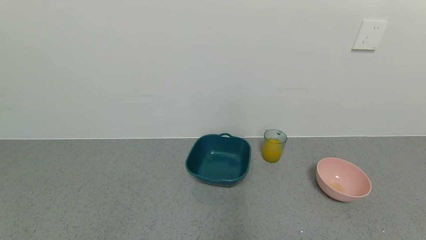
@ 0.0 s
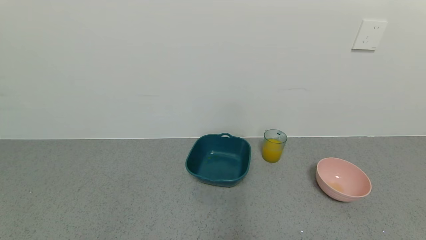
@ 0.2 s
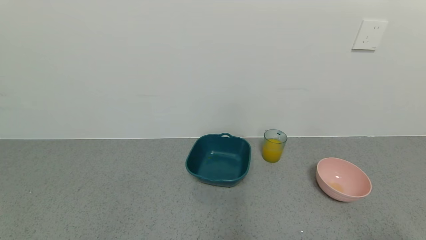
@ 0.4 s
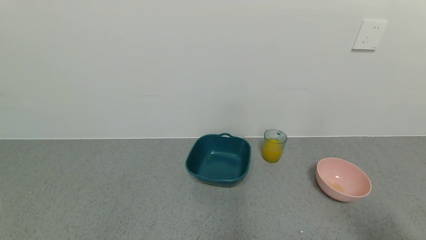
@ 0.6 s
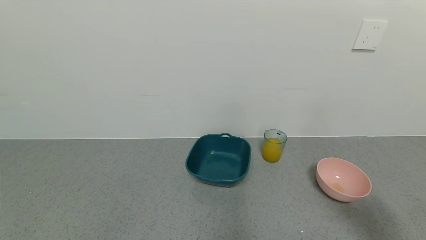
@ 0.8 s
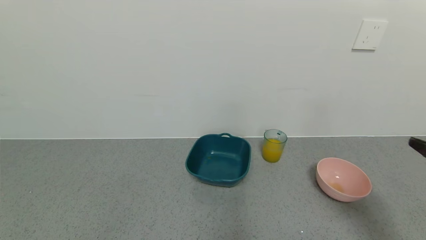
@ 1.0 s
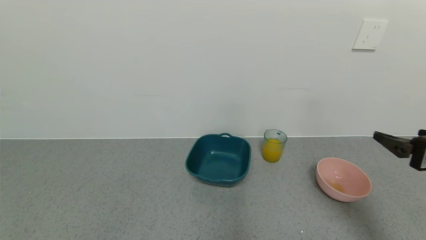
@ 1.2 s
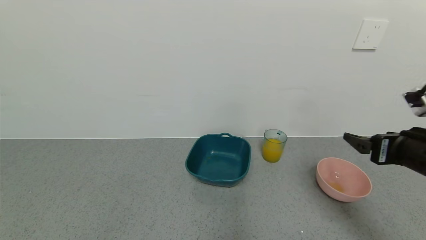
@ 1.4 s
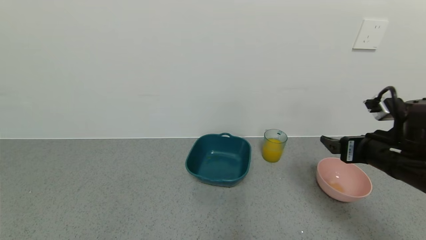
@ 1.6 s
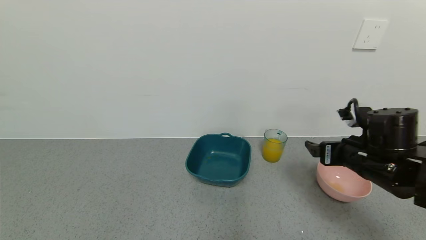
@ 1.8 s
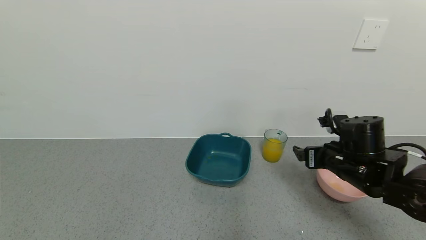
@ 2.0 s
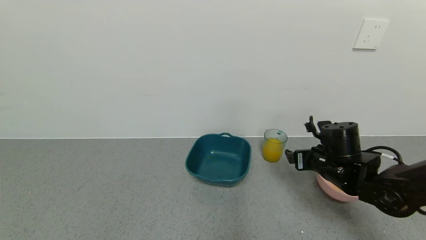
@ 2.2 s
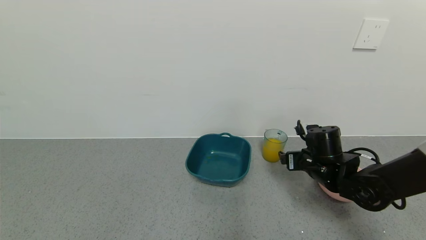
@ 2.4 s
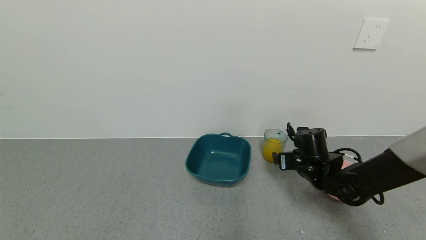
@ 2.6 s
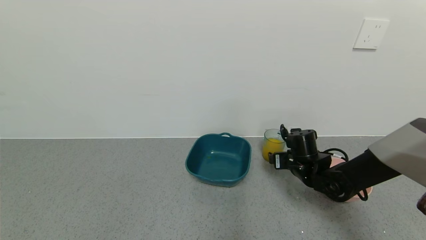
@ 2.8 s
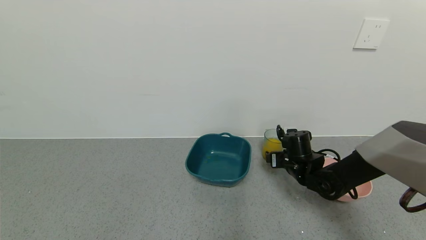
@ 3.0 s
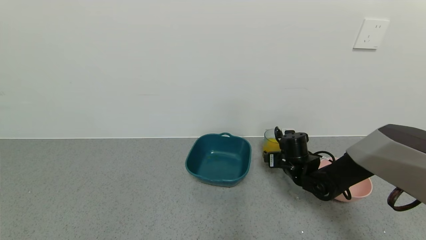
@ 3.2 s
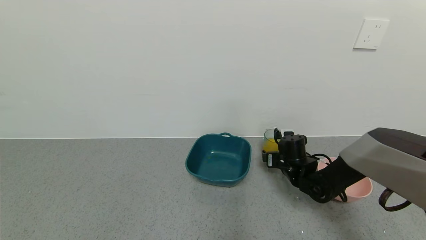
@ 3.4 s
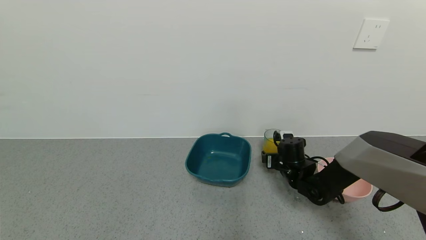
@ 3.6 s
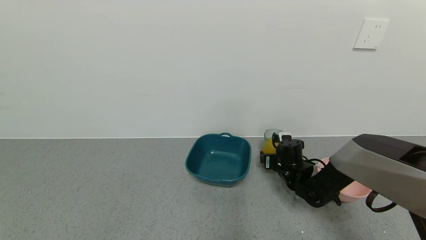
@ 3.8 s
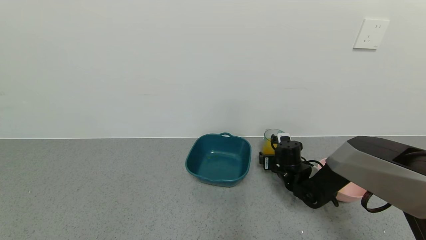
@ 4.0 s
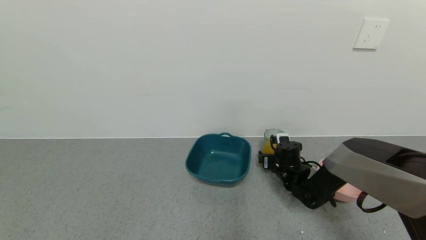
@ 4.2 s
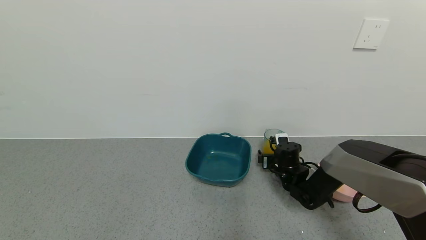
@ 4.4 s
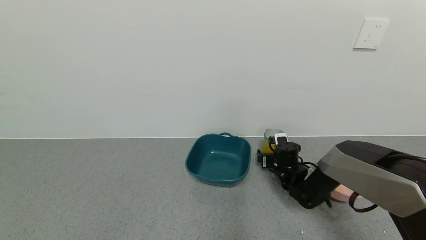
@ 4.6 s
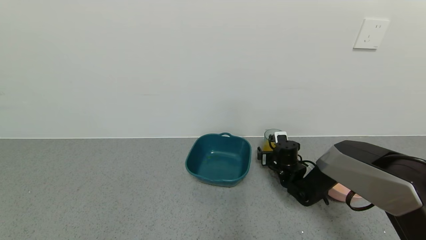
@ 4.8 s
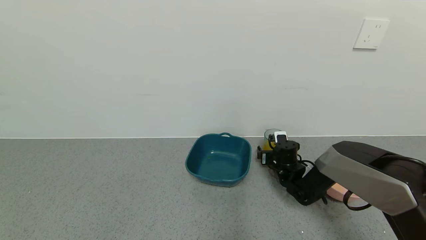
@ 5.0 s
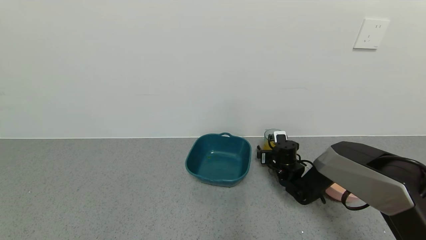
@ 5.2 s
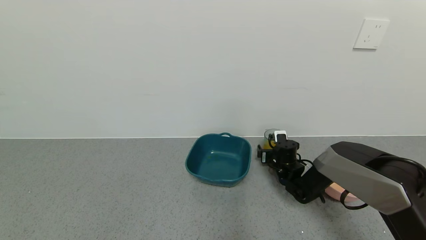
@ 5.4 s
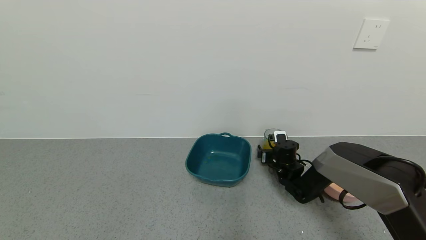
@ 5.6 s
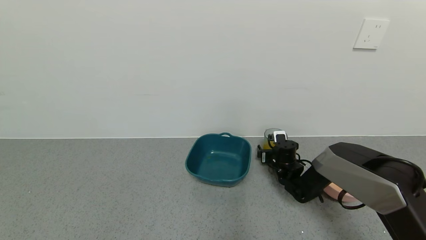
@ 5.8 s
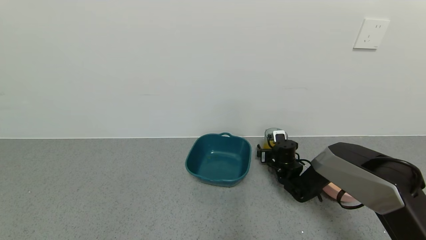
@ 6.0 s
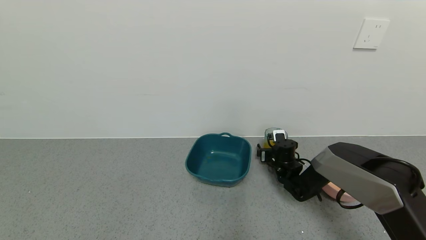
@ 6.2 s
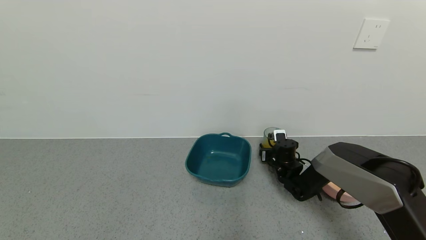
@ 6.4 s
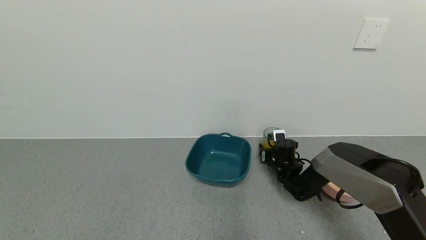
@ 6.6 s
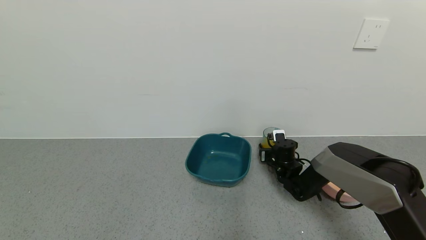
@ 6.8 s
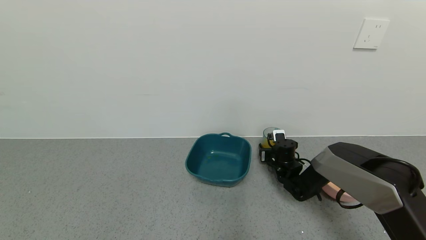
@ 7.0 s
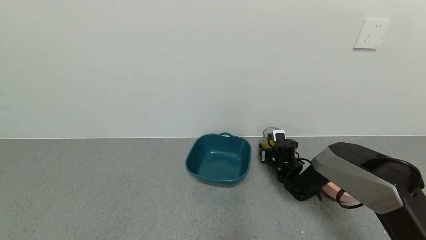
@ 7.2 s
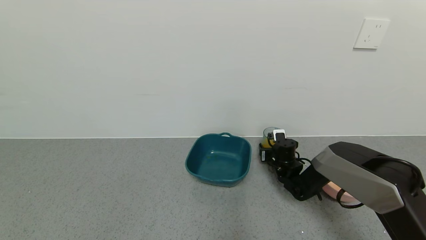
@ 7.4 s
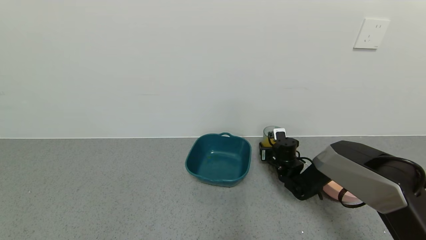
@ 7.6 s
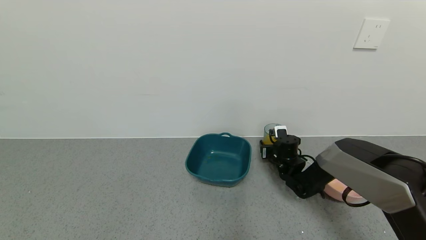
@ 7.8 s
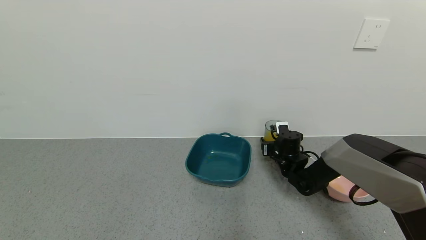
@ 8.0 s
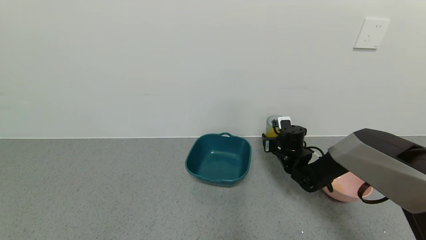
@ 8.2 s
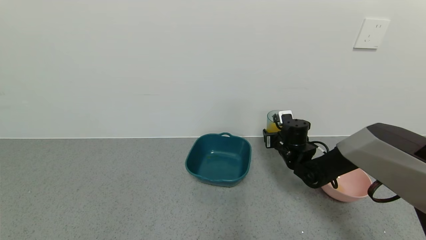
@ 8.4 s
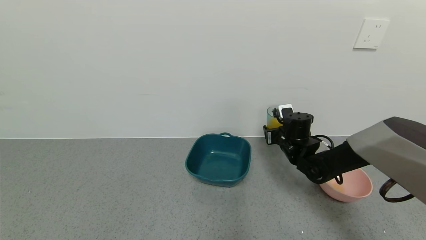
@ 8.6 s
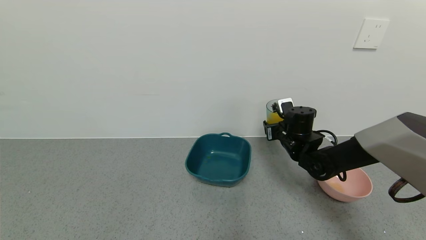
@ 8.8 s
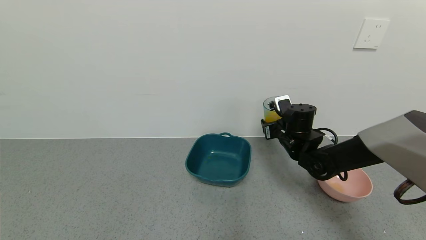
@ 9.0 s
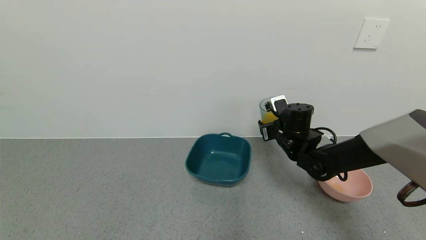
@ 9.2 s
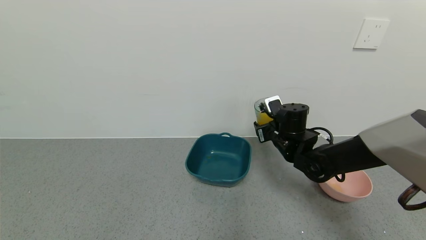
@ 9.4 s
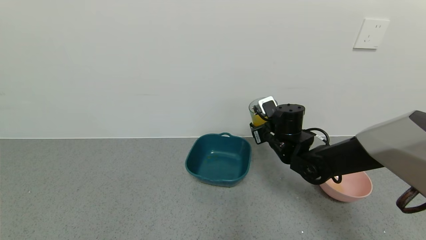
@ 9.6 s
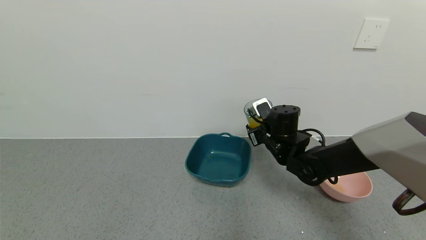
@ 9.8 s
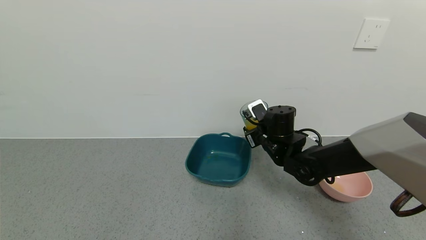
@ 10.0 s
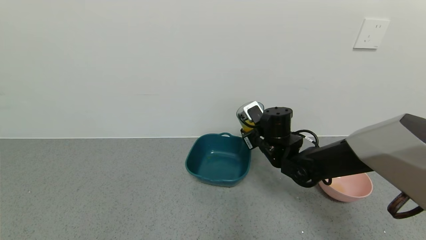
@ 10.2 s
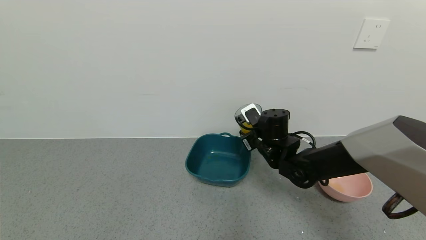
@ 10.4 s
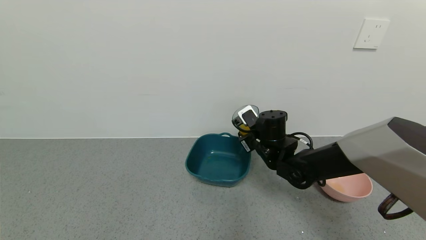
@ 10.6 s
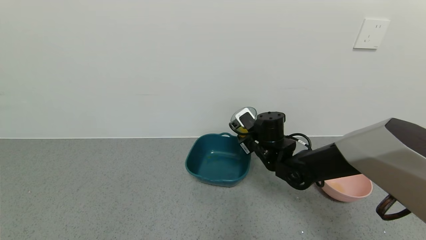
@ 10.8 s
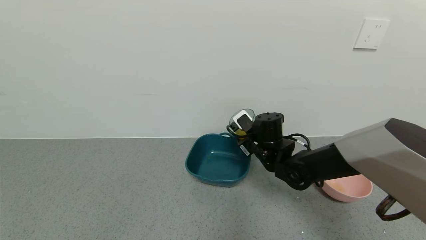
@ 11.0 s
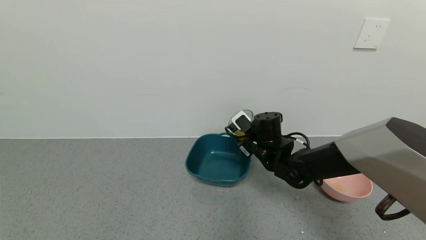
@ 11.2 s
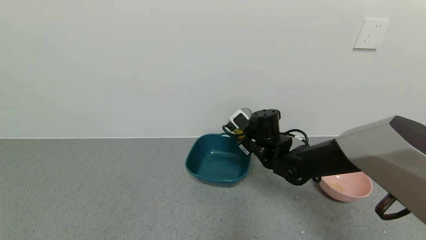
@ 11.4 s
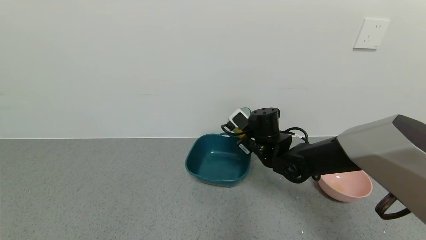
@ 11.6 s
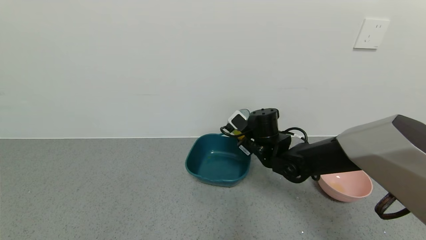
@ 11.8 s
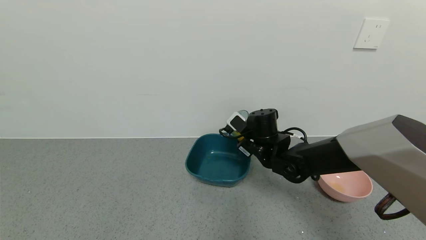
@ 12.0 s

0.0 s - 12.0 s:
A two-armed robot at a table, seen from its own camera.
Task of the whole recording: use a gripper to pick up the cup and pour the liquid into a bowl or tray.
Step, 0.0 s - 7.2 s: Grasp the glass of black tea with the right gripper.
0.0 s - 1.6 s: The right gripper heads forward, covering approximately 30 cm.
1.6 s - 3.0 s: The right gripper heads downward, forward and to the left, covering about 20 cm.
3.0 s - 4.4 s: The right gripper moves downward, approximately 5 cm.
4.4 s - 6.0 s: There are only small adjustments of the grippers.
6.0 s - 7.6 s: The right gripper closes up.
7.6 s - 9.0 s: The right gripper moves upward, roughly 10 cm.
9.0 s - 10.4 s: The right gripper heads to the left, covering about 5 cm.
10.4 s - 12.0 s: The grippers make only small movements.

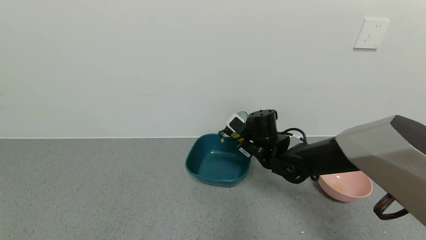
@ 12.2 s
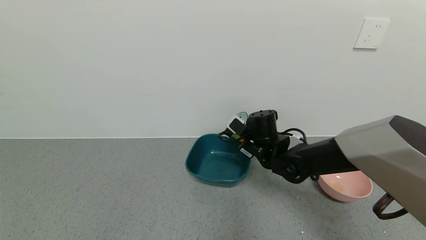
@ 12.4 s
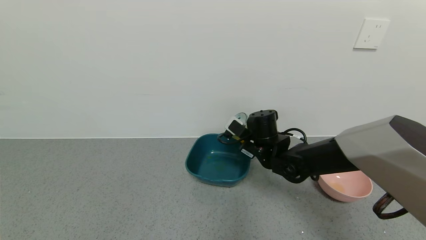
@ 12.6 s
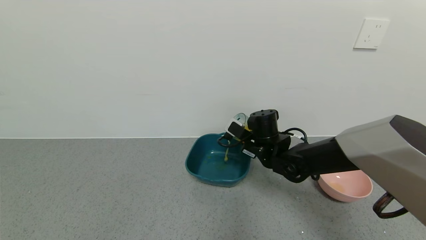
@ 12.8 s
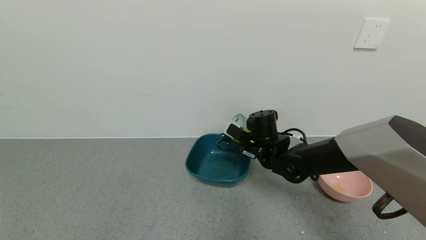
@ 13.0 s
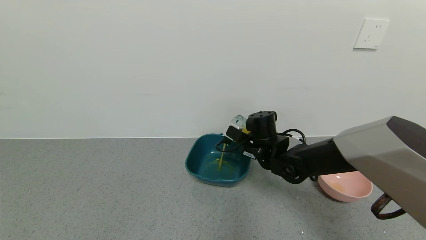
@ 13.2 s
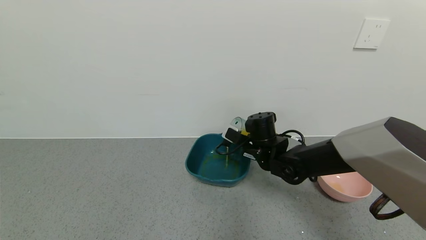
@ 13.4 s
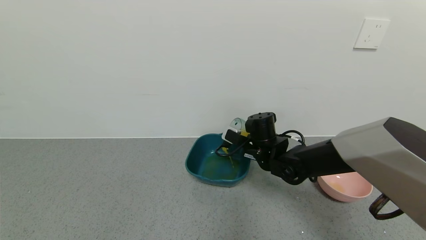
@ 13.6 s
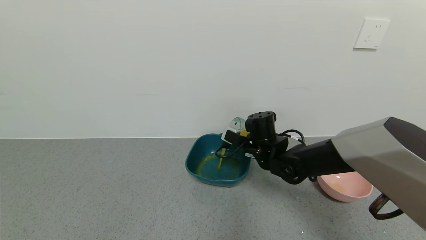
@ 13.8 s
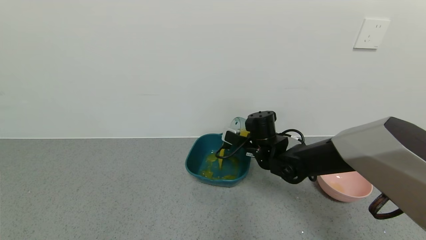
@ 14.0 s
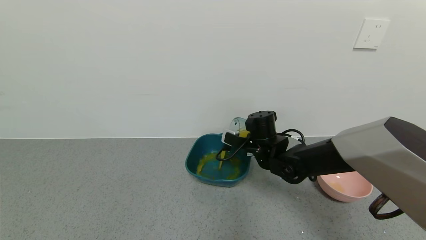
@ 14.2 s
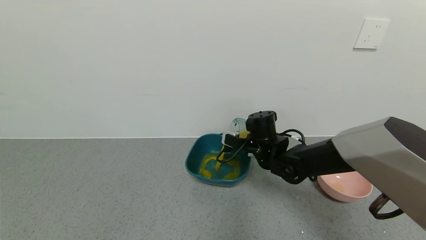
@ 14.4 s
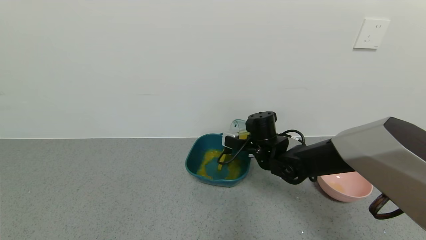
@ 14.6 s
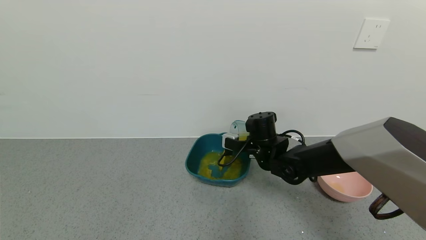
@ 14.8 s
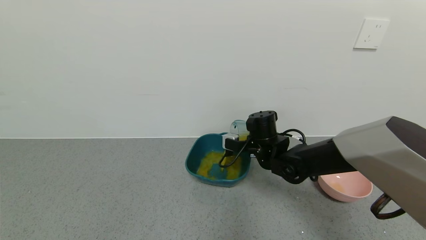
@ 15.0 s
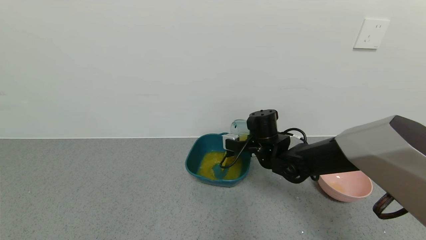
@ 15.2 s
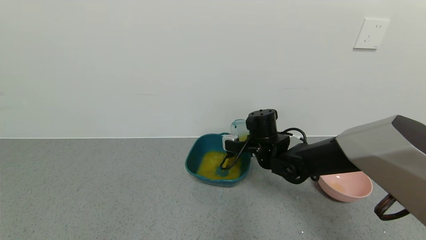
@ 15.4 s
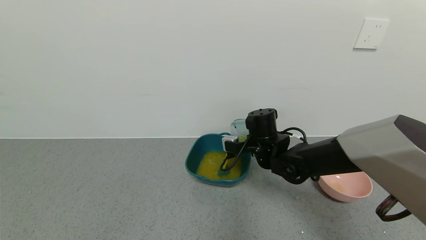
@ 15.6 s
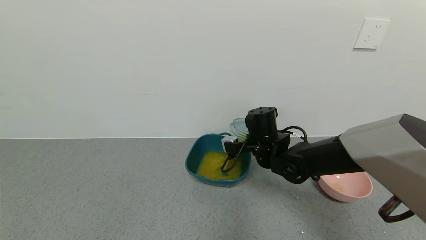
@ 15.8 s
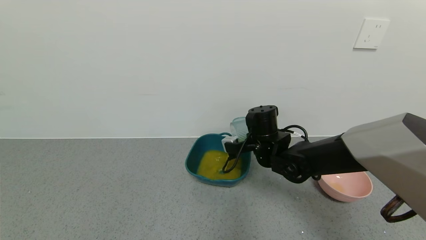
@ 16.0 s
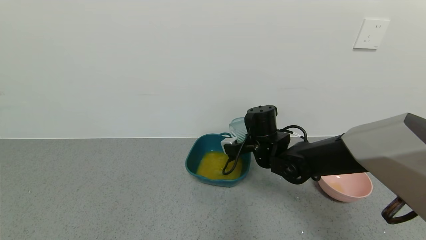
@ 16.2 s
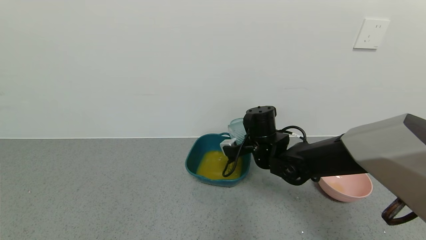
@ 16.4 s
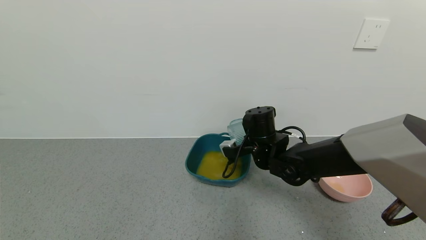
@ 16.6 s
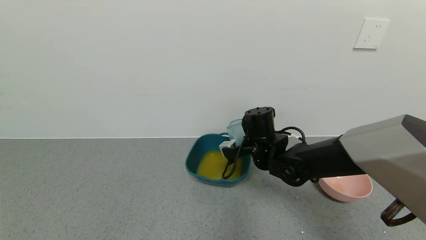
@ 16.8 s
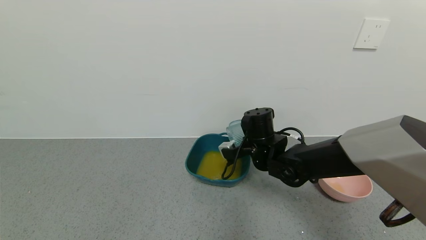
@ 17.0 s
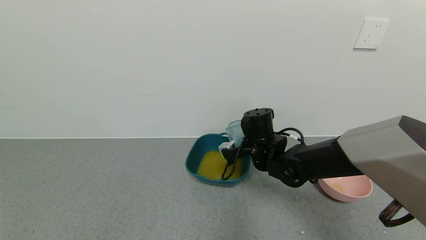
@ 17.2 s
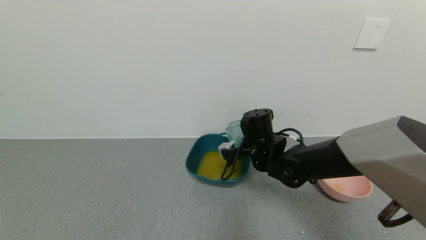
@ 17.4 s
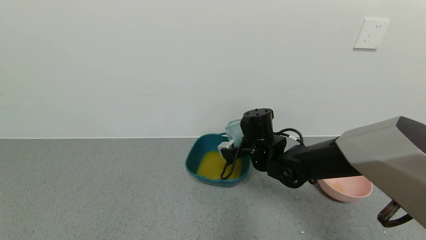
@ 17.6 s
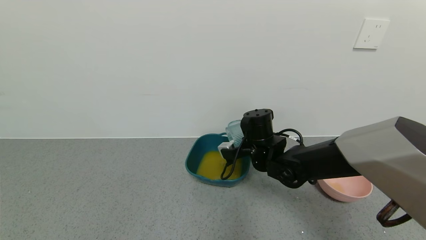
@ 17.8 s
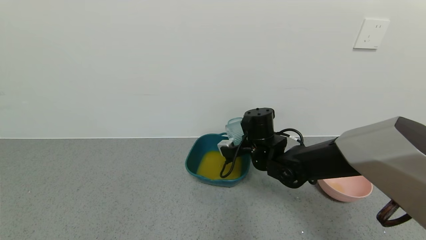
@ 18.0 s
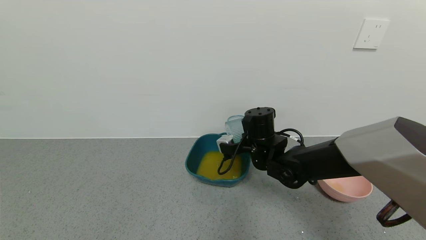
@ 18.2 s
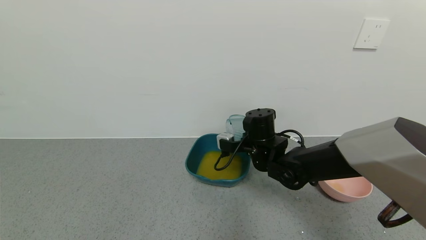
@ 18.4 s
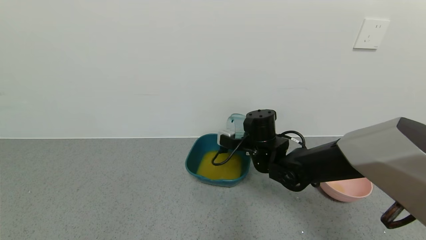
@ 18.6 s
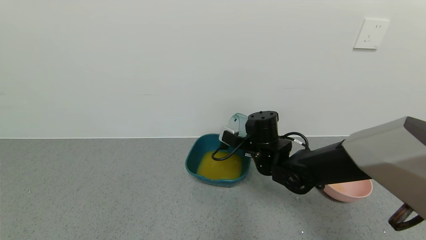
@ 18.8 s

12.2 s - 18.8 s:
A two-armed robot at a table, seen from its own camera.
Task of the whole recording: use a gripper to pick up the cup and pour the liquid into a bowl or tray.
Step, 12.2 s - 18.6 s: Pour the black tea into the green bowl with the right gripper.
15.4 s - 17.2 s: The grippers stay close to where they were, moving slightly.
